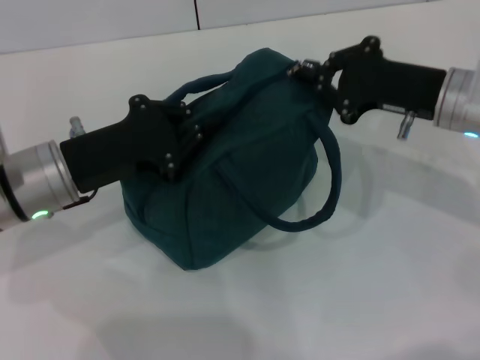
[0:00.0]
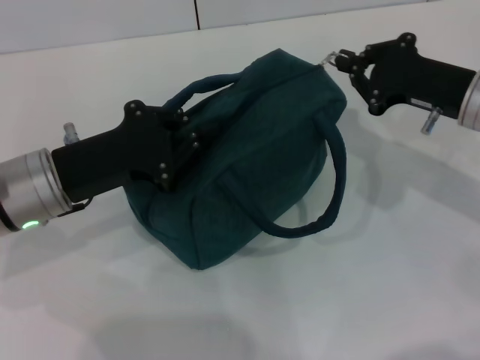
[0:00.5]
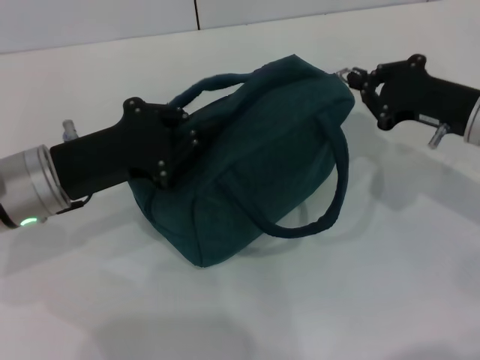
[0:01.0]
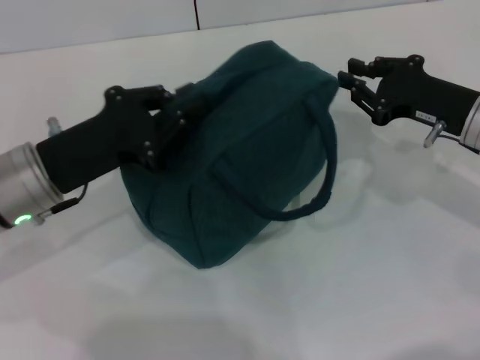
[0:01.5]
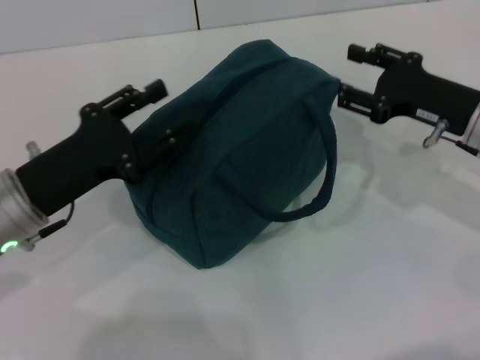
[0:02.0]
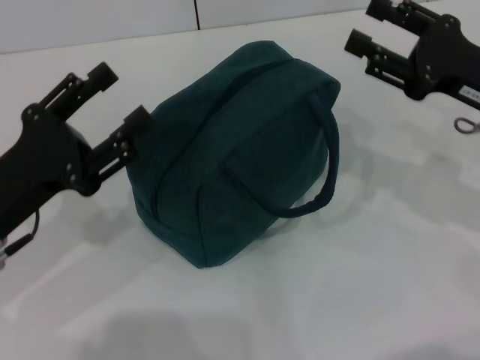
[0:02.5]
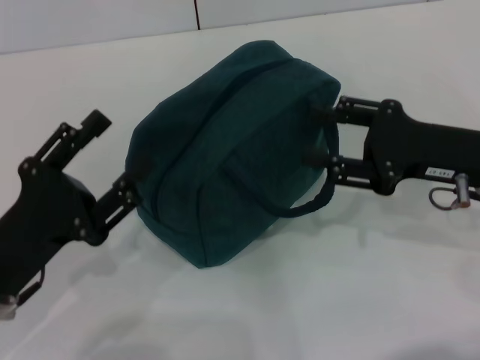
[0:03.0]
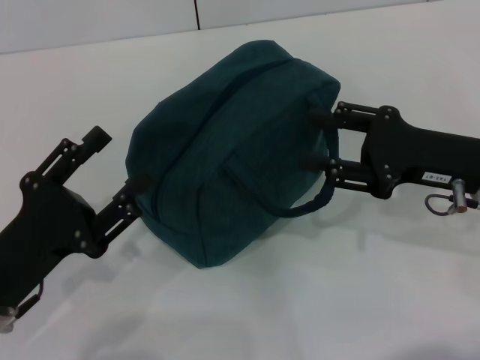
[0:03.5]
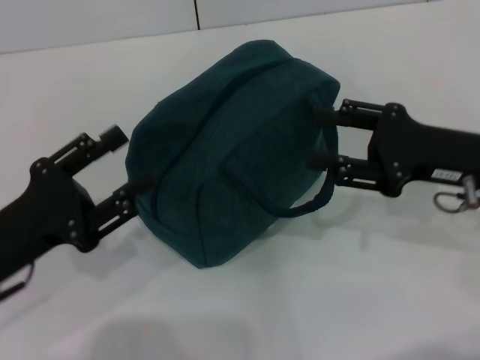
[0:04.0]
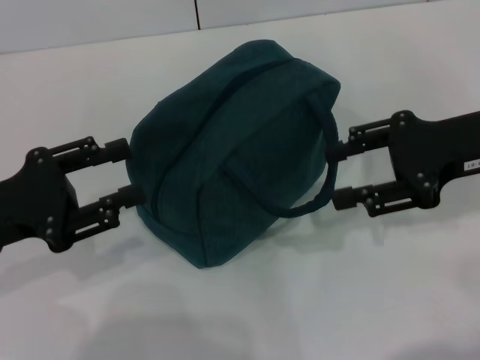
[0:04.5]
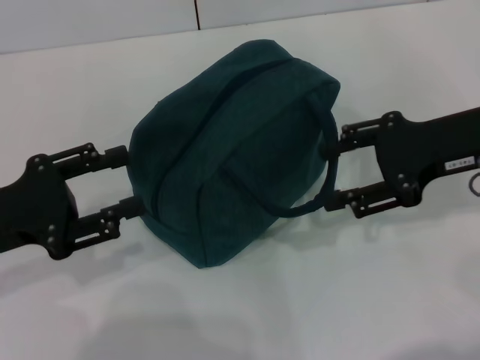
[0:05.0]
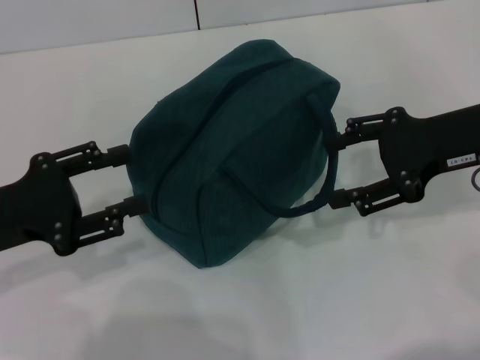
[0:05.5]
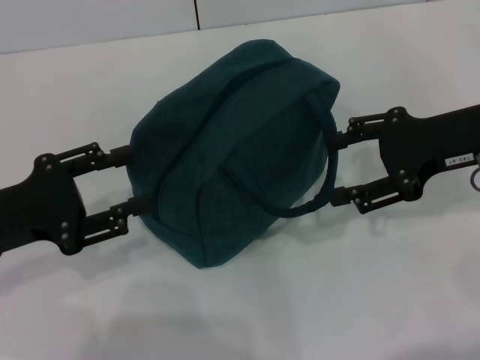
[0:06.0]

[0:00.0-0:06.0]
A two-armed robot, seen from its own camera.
0:00.0 to 0:02.0: The right gripper opens.
0:02.0 to 0:04.0: The right gripper moves about 5 cm; the left gripper shifts some 5 cm backward, and opens up.
0:04.0 to 0:06.0: The right gripper heads upward, covering approximately 5 cm.
